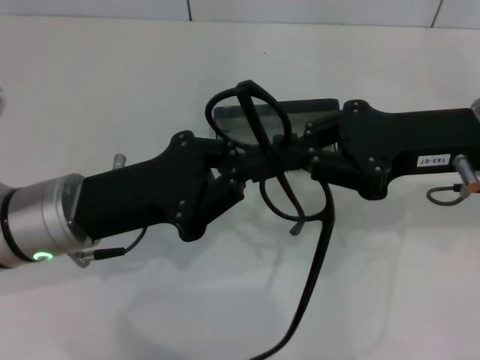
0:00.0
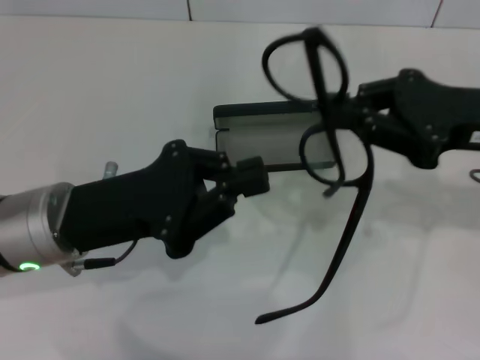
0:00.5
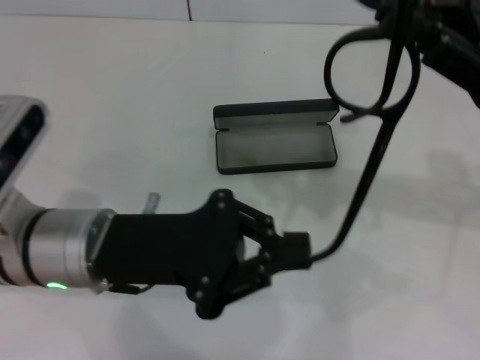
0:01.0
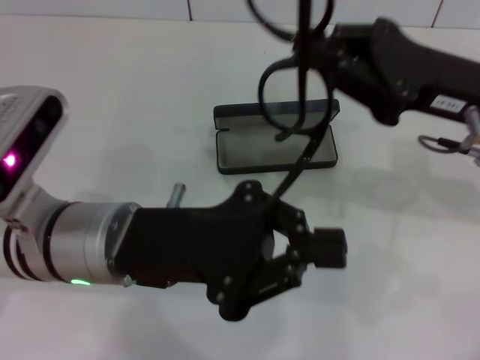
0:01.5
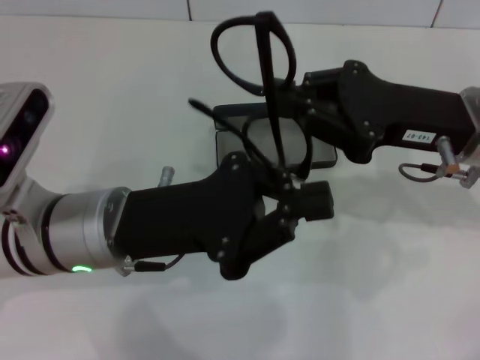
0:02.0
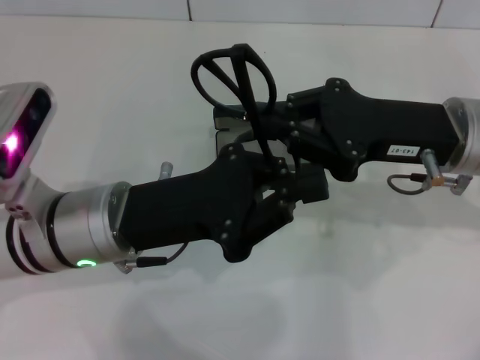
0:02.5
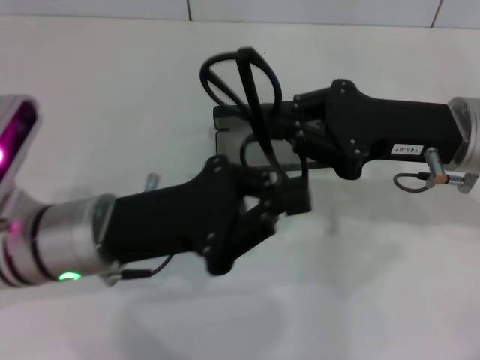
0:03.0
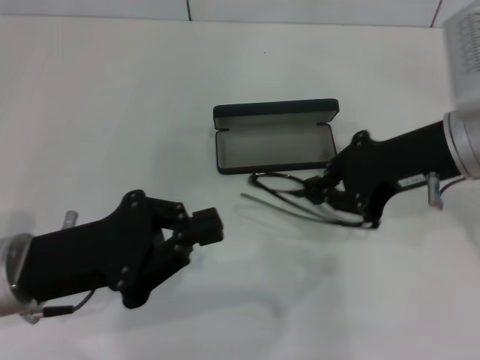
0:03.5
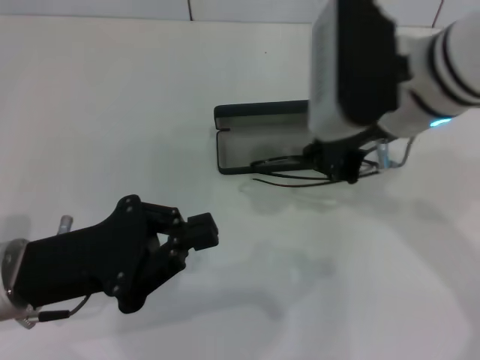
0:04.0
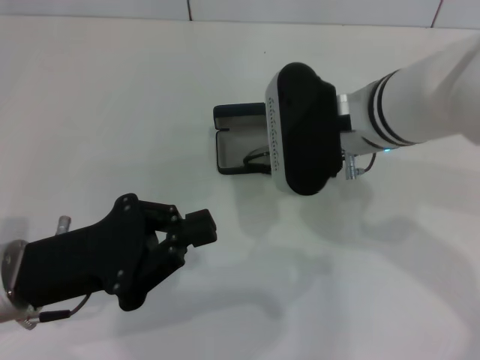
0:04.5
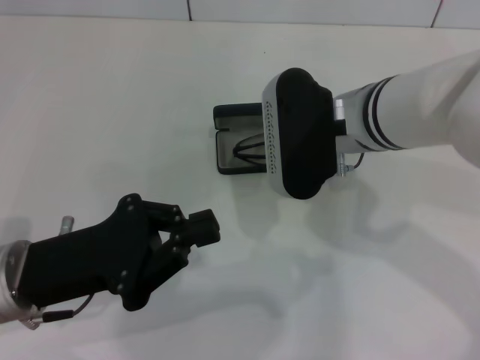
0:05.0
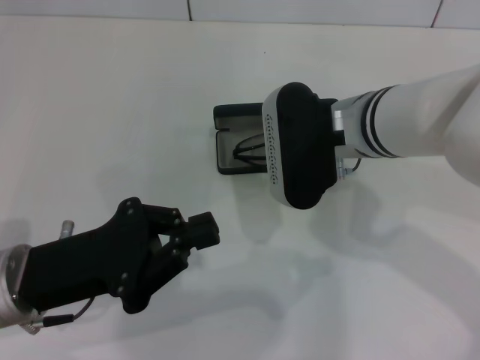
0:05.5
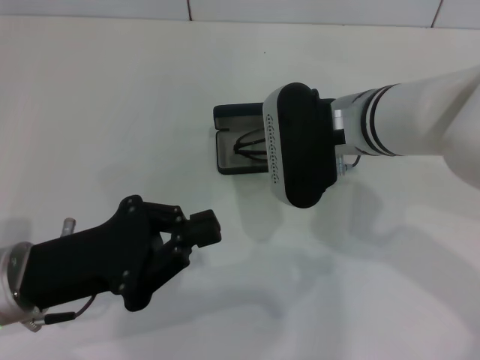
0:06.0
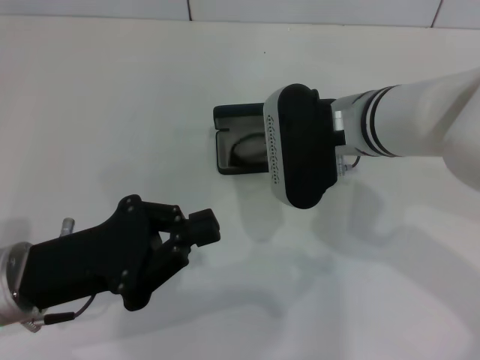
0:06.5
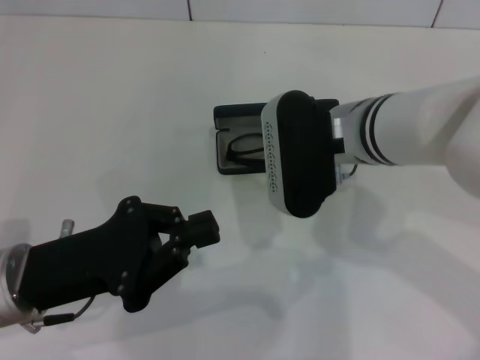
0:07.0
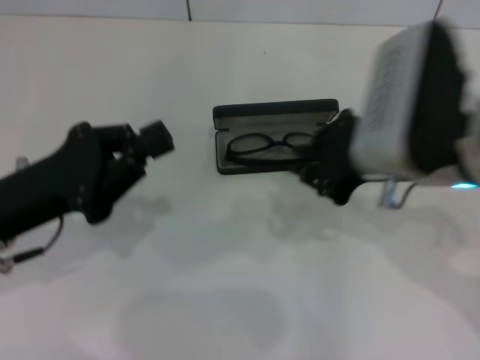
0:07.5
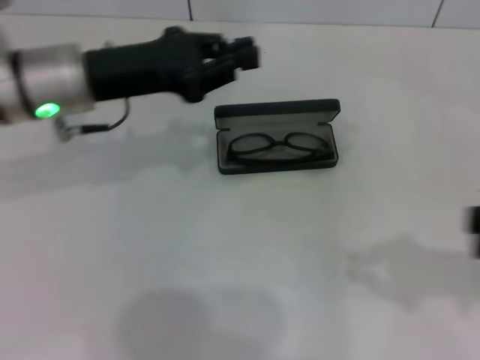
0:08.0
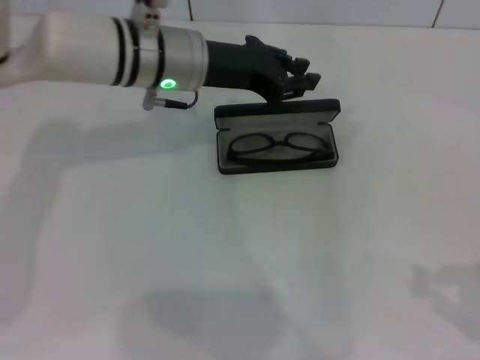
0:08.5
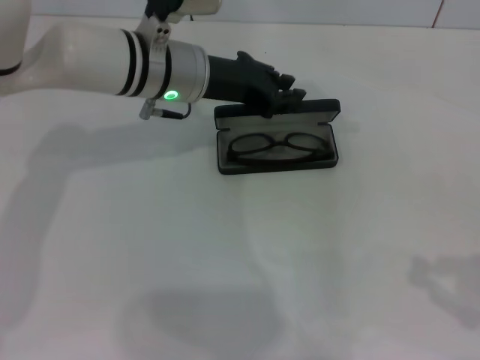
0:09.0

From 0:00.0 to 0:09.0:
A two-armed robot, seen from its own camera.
Step, from 0:00.0 to 0:02.5: Fold the frame with your left hand.
Step, from 0:03.0 to 0:06.5: Put the glasses into the case with your right hand.
From 0:02.0 to 0:04.5: Both grippers travel together to the left, approximately 10 cm.
From 0:04.5 to 0:07.0: There are only small adjustments of the grippers.
From 0:07.0 to 0:09.0: The left gripper is displaced forward and to the right by about 25 cm. The right gripper heads to the right and backward, covering some 35 cm.

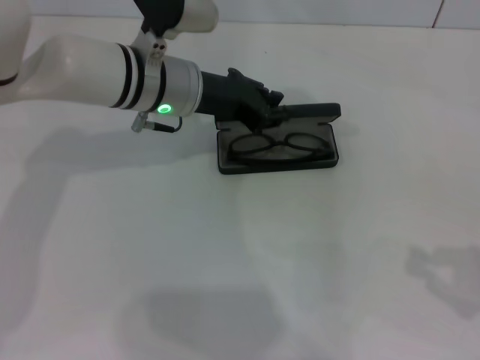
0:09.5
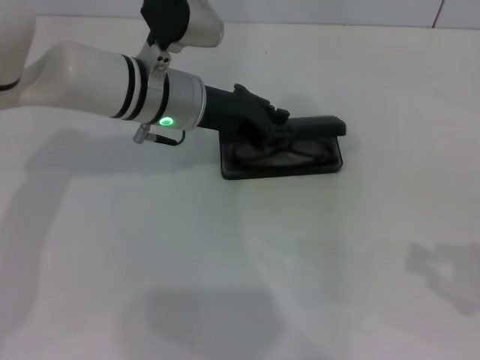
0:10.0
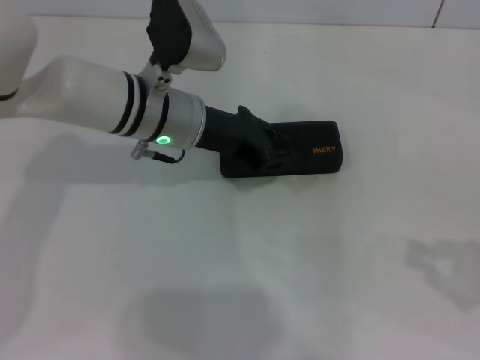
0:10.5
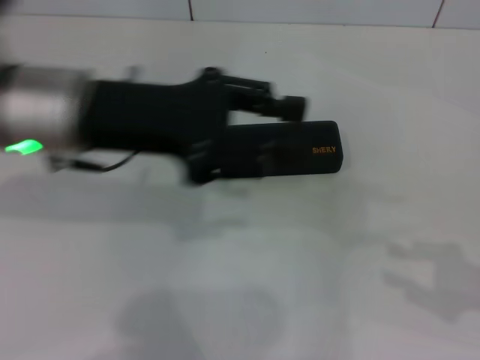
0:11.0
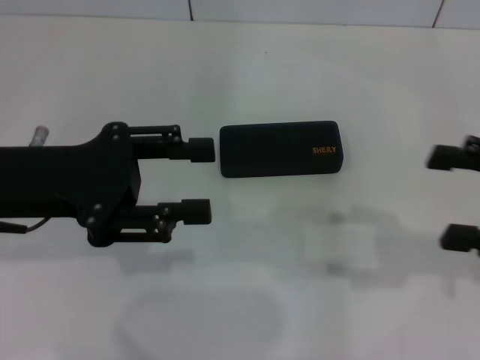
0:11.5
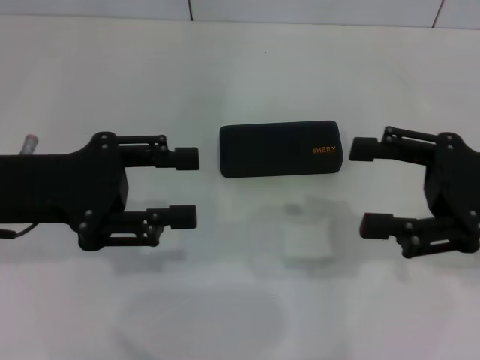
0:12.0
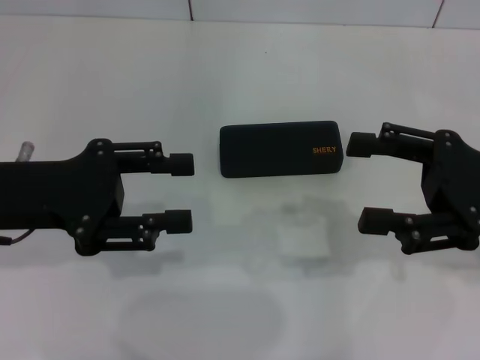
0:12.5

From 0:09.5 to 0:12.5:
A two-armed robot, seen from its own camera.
From 0:09.5 to 0:11.0: The left gripper heads backward, upward and to the left, covering about 15 cm.
From 0:11.0 to 0:12.5: The left gripper moves to the left, approximately 10 cm, and opens; the right gripper is displaced to the left and forward by about 15 cm, and opens its fingers.
